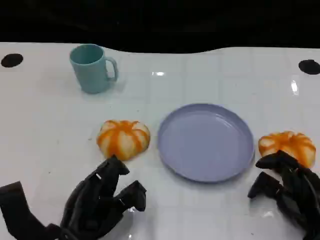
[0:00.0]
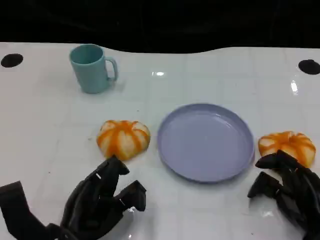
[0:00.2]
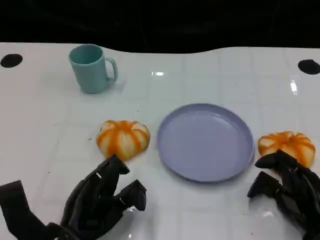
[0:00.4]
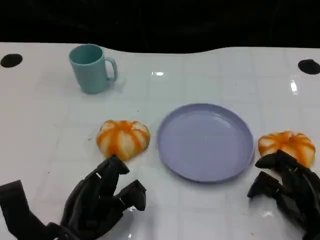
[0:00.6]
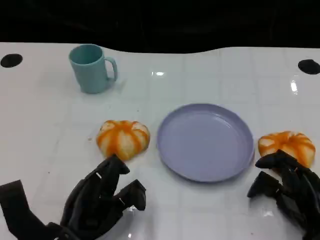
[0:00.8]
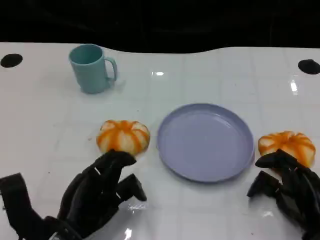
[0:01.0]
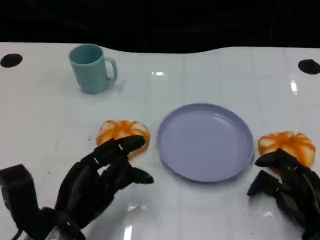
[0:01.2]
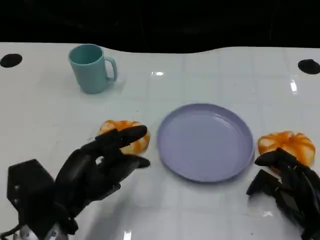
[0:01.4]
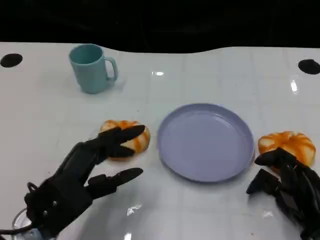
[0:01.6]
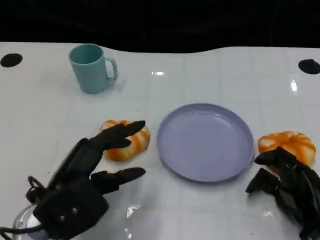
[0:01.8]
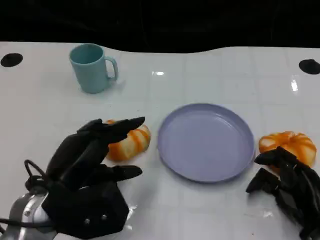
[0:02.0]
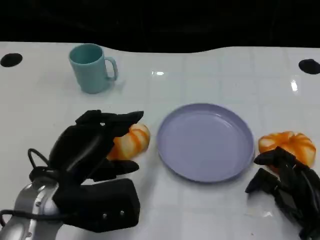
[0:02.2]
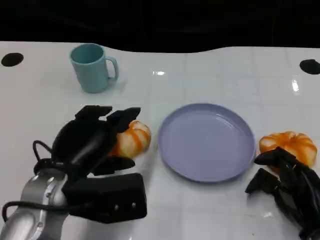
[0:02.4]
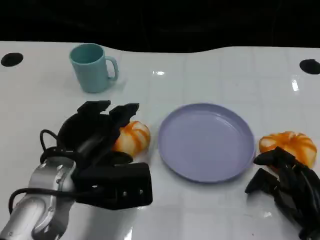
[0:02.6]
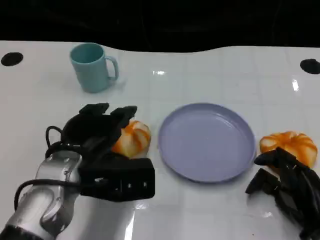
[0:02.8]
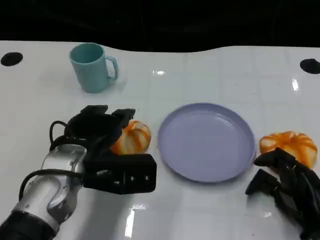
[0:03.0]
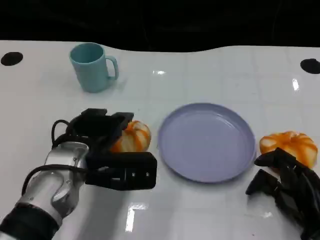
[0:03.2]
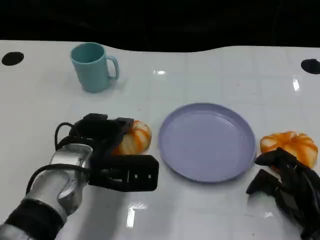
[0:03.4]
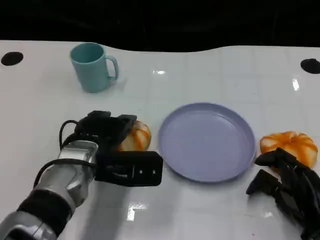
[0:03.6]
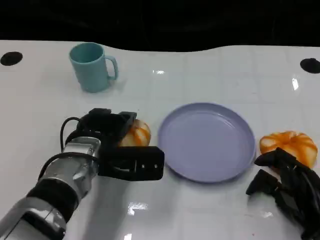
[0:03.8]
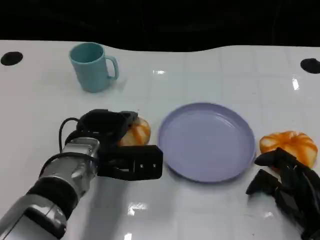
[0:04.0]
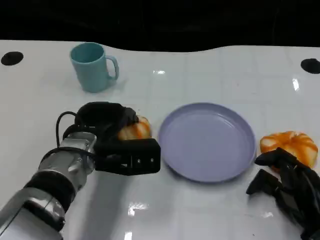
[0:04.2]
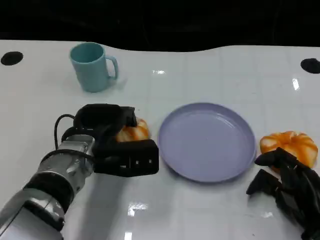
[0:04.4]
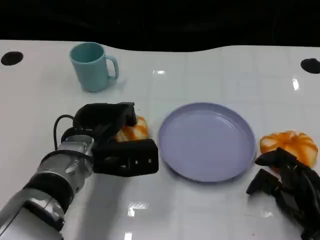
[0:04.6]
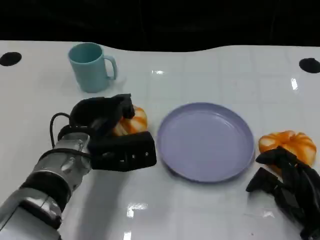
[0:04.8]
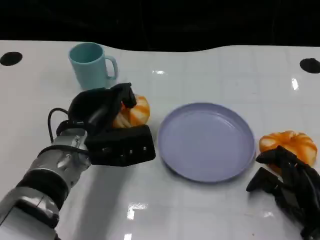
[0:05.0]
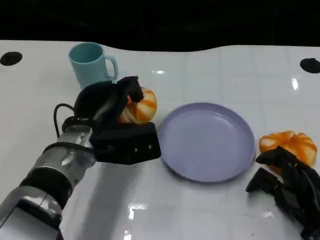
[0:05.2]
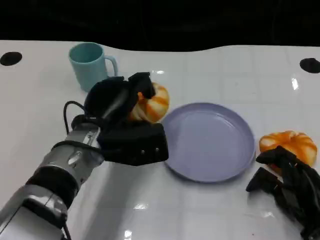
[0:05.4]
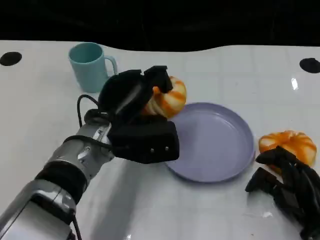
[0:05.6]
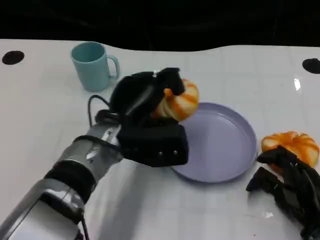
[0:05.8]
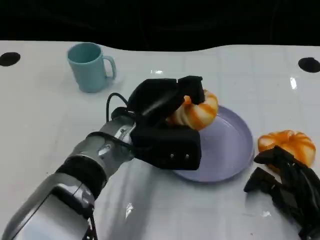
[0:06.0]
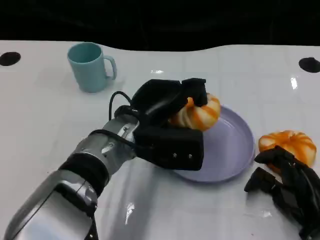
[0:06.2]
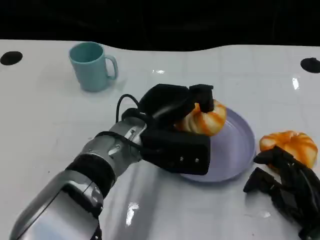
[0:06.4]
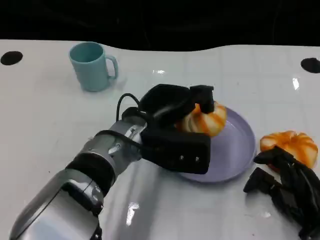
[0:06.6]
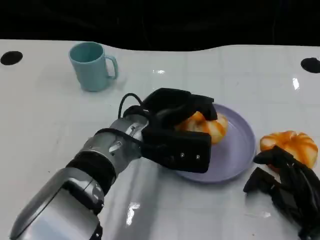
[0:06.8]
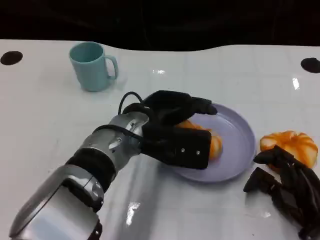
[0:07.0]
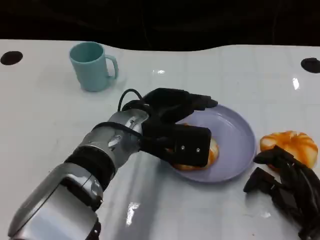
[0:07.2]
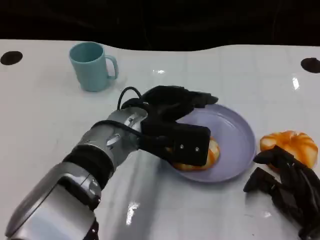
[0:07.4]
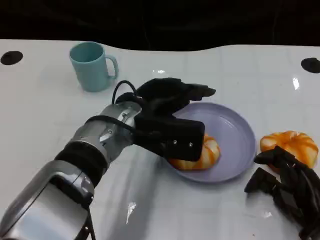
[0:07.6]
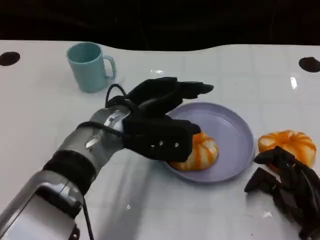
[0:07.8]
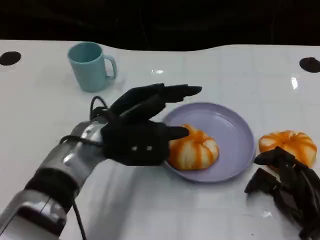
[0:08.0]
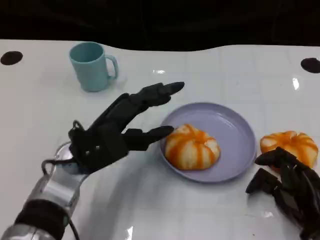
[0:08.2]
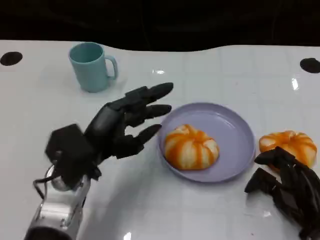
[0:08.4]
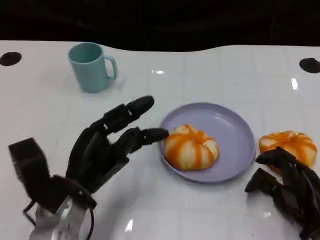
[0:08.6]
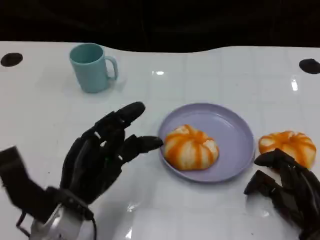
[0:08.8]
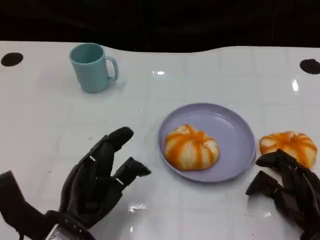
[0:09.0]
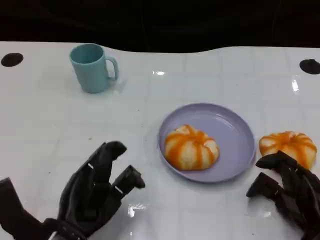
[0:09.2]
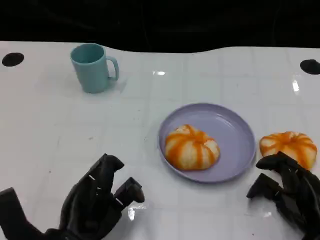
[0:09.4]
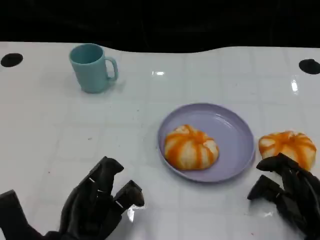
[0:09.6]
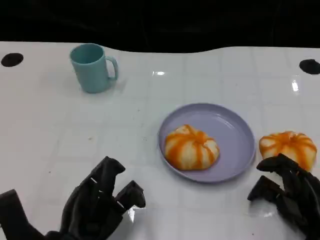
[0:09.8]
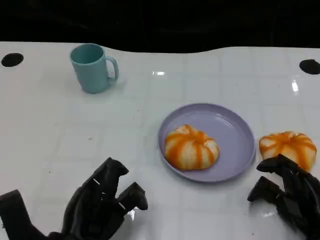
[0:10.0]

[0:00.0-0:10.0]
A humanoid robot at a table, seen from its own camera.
Task of the whole recording: Grasp the bread from the table and place it into the plate.
0:00.0 to 0:01.4: The left hand moves upward, some 5 cm.
0:01.4 to 0:02.8: The left hand shifts roughly 5 cm forward.
0:02.8 to 0:04.2: The left hand ends up some 5 cm from where it was.
0:04.2 to 0:05.8: The left hand goes approximately 5 cm to the right.
0:07.2 to 0:08.6: The left hand is displaced to the left, backward and downward by some 15 cm.
0:08.6 to 0:10.0: The left hand goes about 5 cm backward.

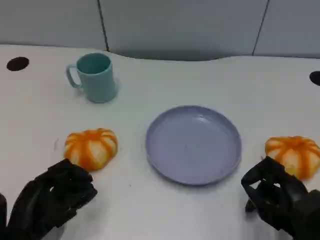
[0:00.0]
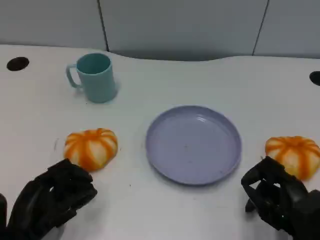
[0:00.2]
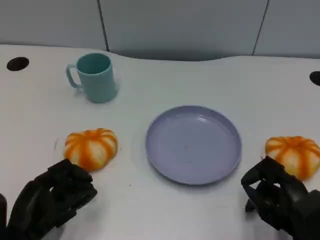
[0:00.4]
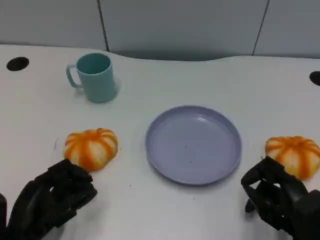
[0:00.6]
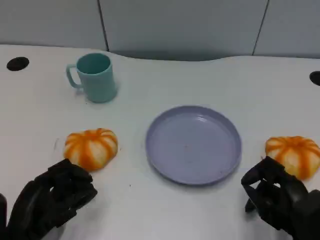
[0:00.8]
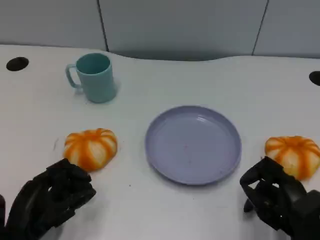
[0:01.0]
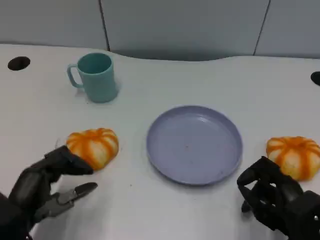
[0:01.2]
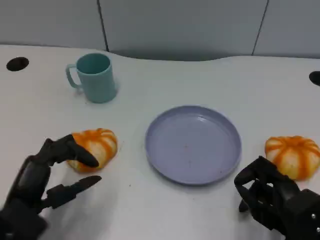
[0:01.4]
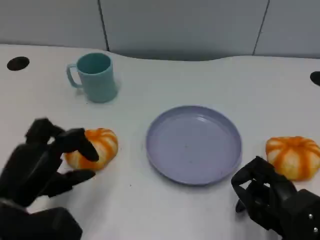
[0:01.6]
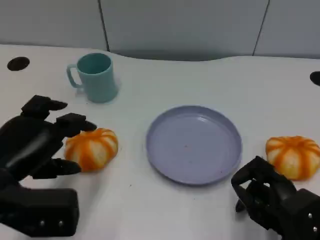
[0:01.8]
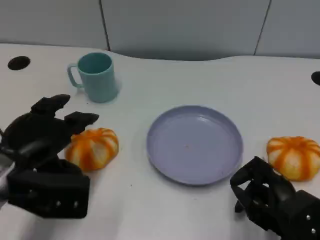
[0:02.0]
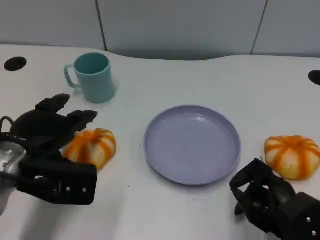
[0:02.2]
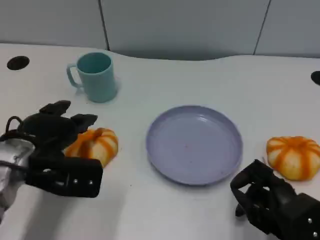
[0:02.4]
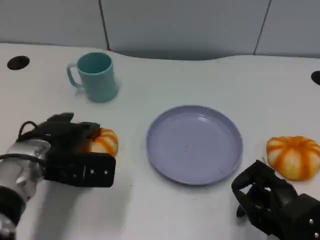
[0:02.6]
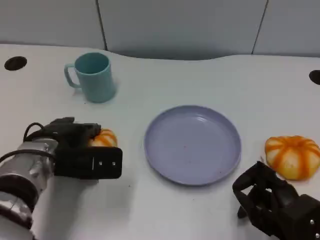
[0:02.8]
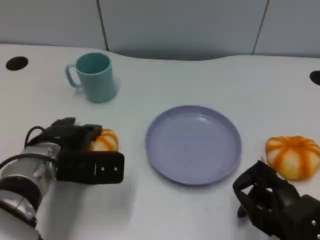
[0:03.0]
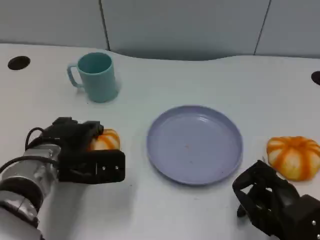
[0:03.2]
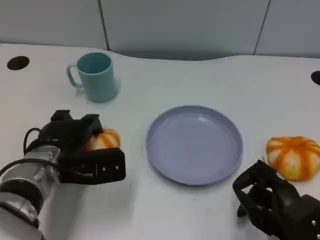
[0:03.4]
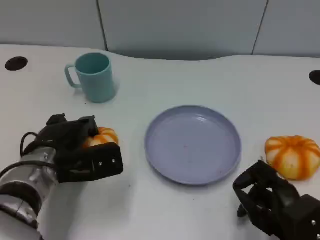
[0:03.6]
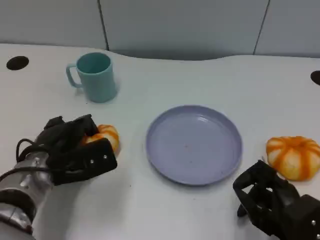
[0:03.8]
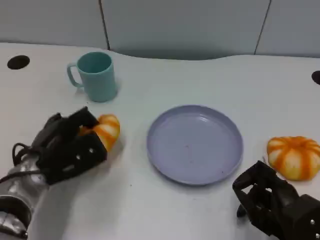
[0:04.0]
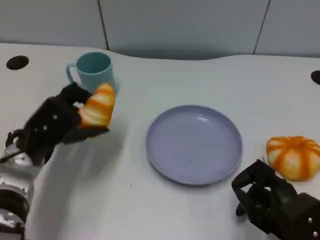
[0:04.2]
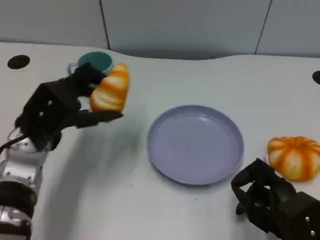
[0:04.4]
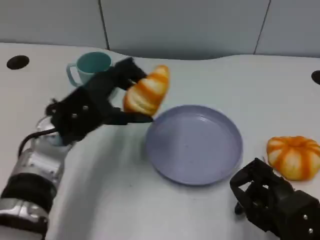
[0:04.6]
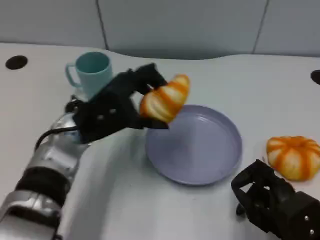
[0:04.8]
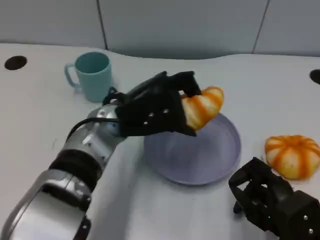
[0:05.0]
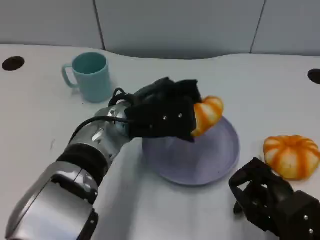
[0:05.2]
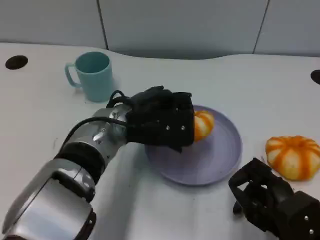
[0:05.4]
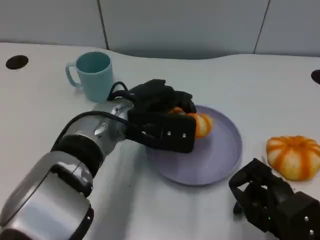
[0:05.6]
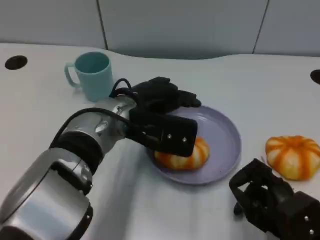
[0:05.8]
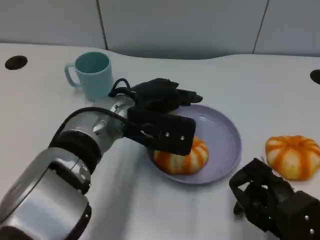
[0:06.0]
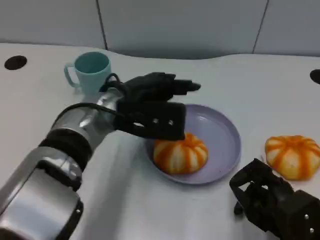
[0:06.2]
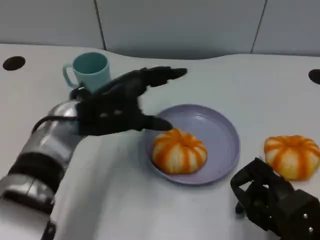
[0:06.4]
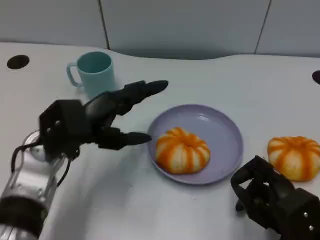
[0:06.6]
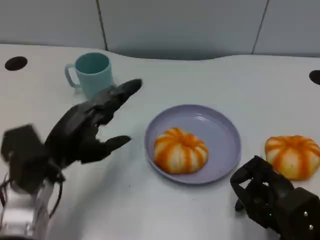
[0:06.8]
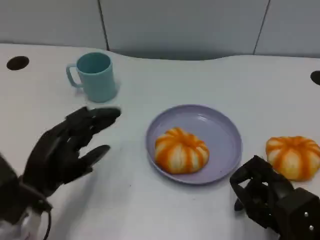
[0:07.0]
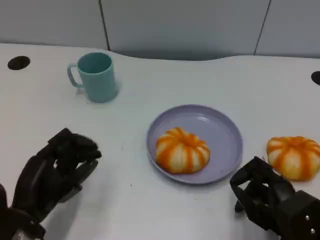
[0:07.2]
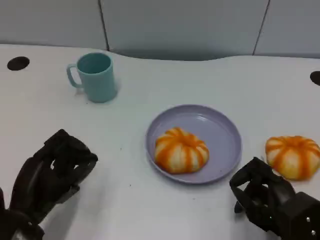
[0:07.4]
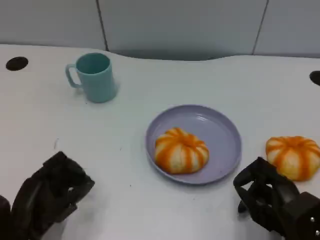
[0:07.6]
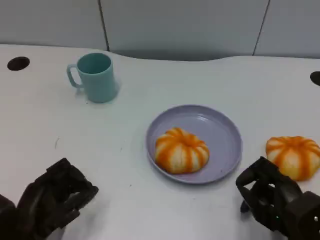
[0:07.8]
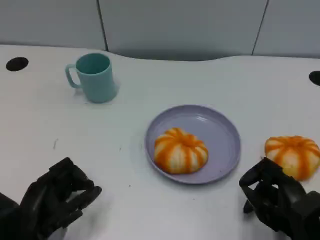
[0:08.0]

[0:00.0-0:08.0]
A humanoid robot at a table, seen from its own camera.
Task of the whole recording: Grasp the bread from the table and place it into the plate.
0:00.0 to 0:01.6: The left hand moves upward, approximately 10 cm.
0:01.6 to 0:03.2: The left hand moves forward and to the right, roughly 10 cm.
0:03.2 to 0:04.8: The left hand heads to the right and upward, covering some 10 cm.
0:06.4 to 0:08.0: The left hand travels backward, downward and to the left by approximately 20 cm.

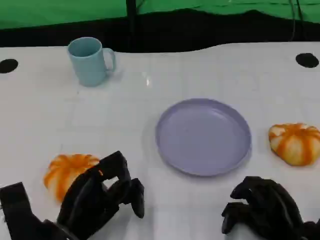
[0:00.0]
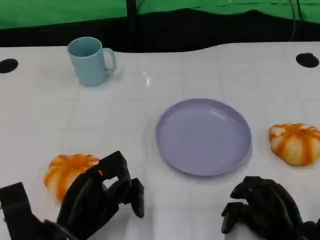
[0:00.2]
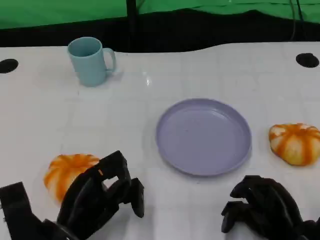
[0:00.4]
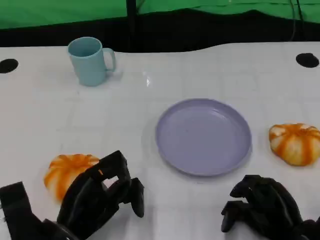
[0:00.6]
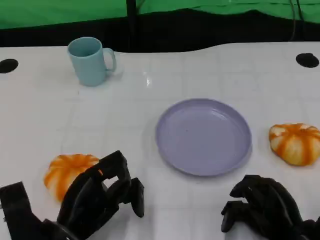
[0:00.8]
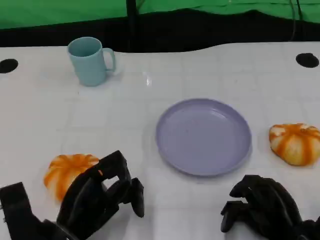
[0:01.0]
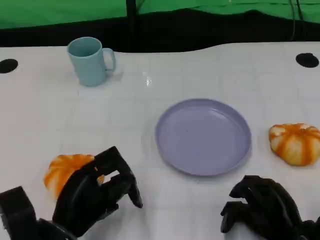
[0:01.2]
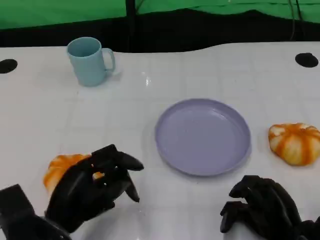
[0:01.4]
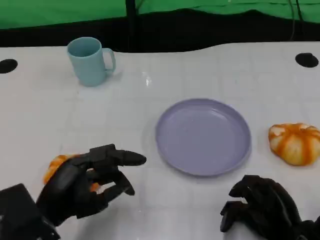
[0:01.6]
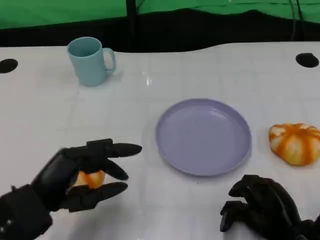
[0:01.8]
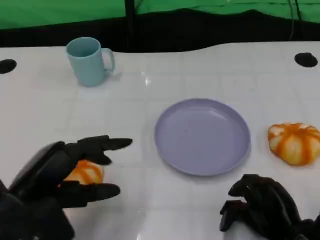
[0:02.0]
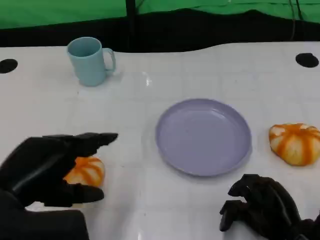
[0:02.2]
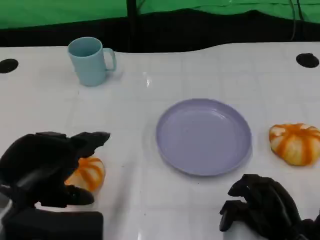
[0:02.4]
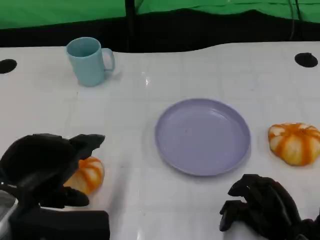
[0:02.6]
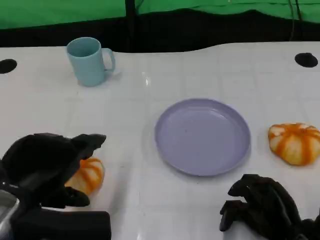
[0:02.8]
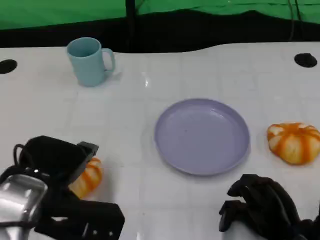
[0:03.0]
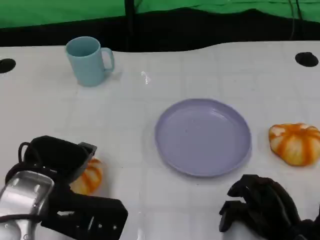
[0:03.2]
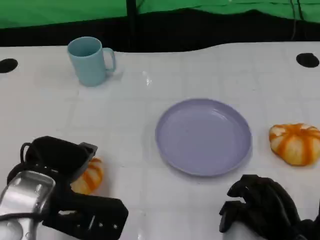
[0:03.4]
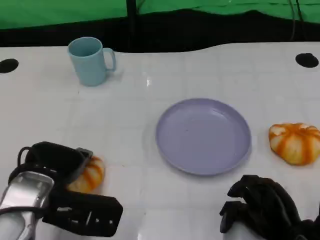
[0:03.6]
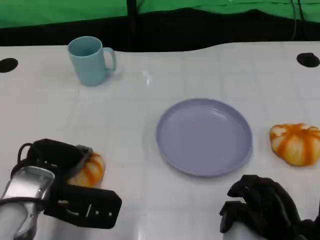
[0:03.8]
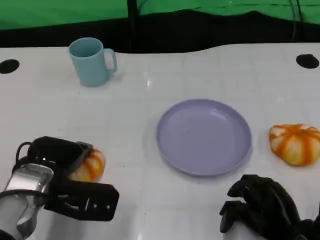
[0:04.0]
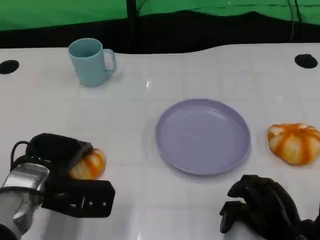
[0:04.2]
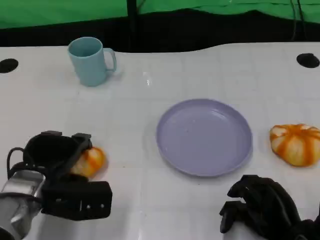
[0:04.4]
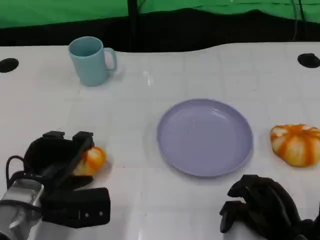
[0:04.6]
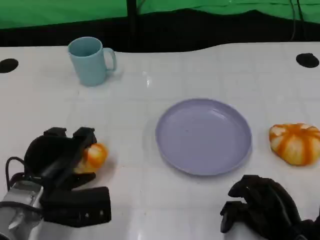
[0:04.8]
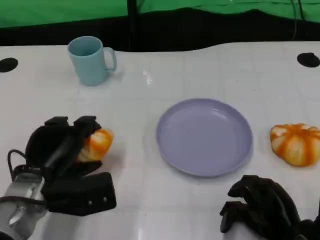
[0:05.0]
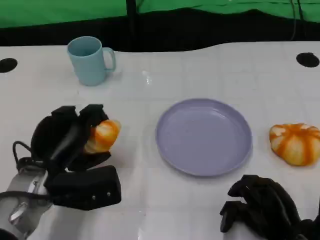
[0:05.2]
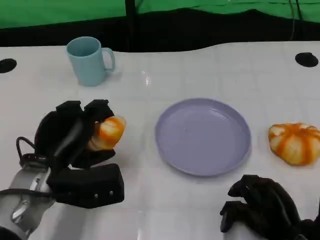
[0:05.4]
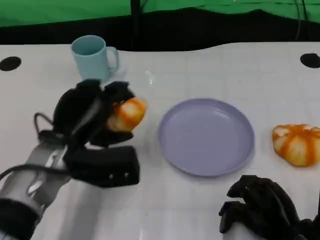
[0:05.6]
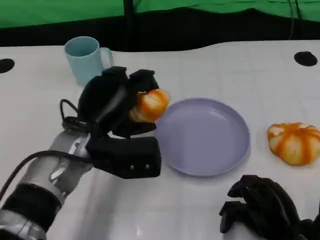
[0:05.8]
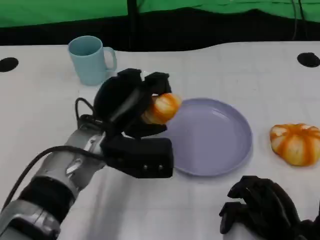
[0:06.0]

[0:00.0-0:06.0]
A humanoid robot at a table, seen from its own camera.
Task of the whole recording: Grasp the bread from the table and place it into the plate.
0:00.0 to 0:01.6: The left hand moves approximately 5 cm.
0:01.6 to 0:03.0: The left hand goes roughly 5 cm upward.
0:03.0 to 0:04.4: The left hand moves downward, roughly 10 cm.
0:04.4 to 0:06.0: The left hand travels to the right and upward by about 10 cm.
